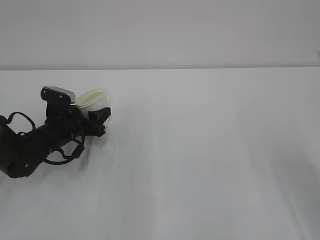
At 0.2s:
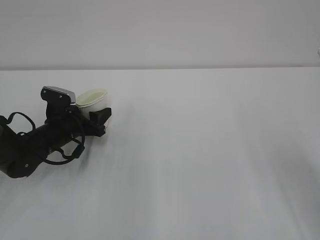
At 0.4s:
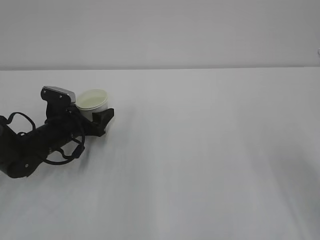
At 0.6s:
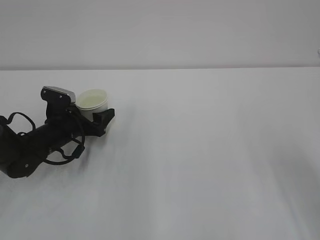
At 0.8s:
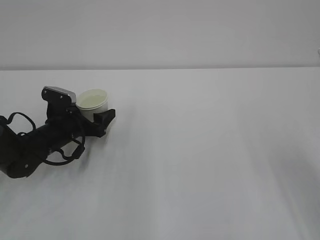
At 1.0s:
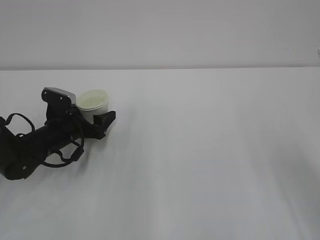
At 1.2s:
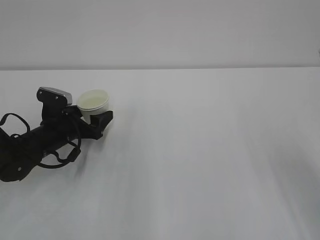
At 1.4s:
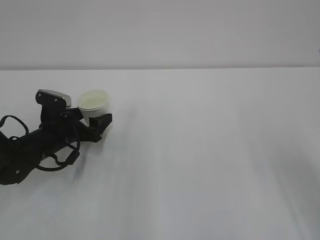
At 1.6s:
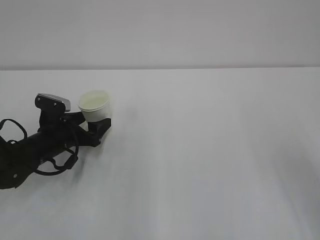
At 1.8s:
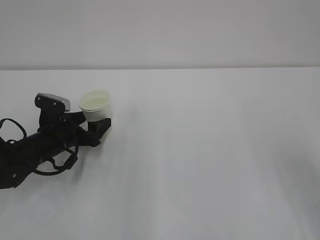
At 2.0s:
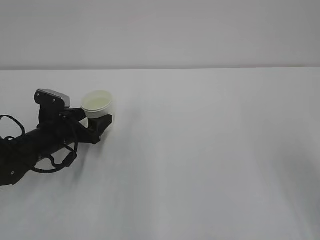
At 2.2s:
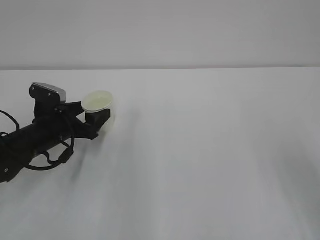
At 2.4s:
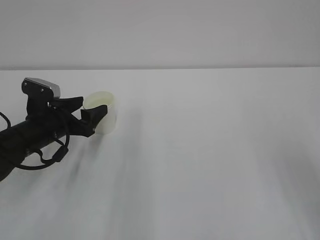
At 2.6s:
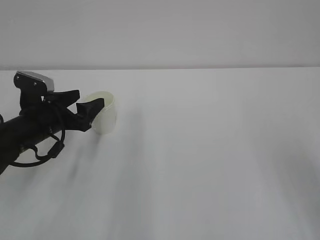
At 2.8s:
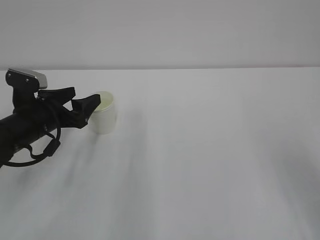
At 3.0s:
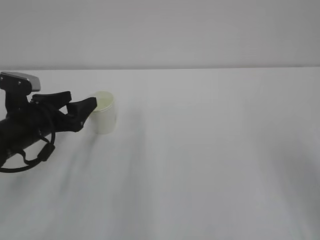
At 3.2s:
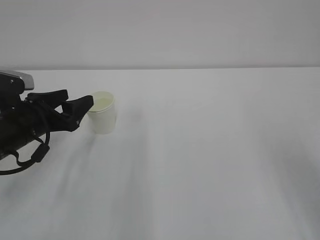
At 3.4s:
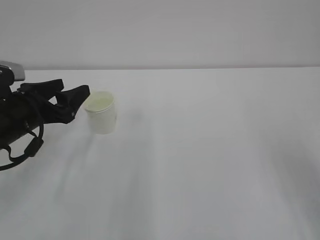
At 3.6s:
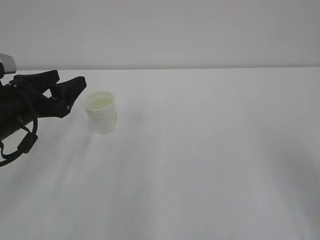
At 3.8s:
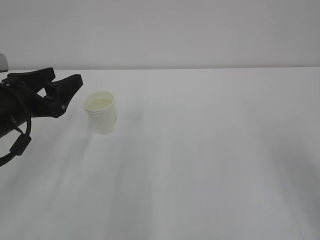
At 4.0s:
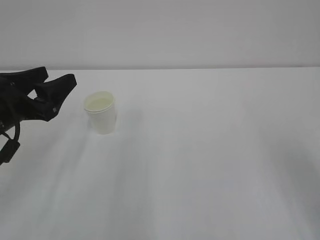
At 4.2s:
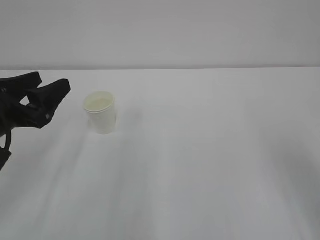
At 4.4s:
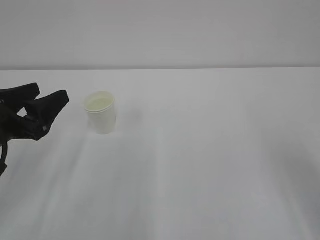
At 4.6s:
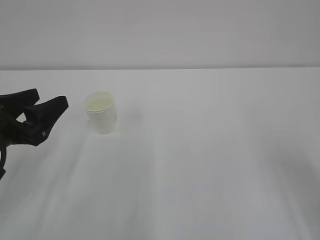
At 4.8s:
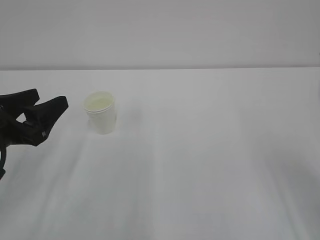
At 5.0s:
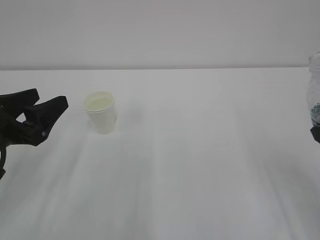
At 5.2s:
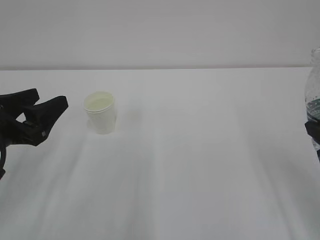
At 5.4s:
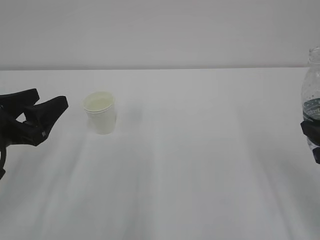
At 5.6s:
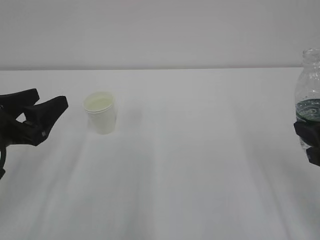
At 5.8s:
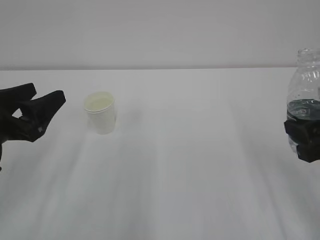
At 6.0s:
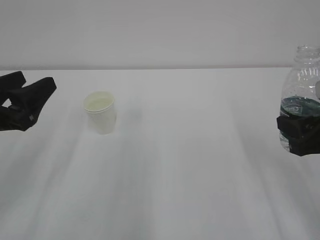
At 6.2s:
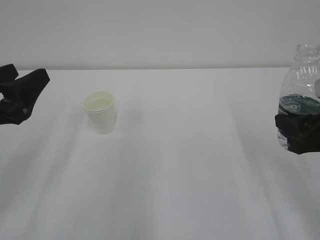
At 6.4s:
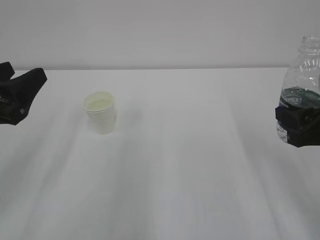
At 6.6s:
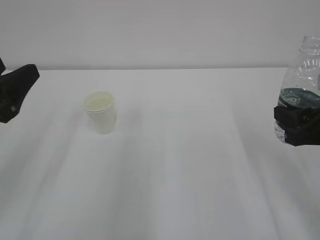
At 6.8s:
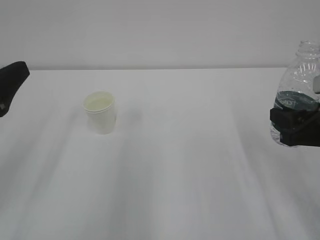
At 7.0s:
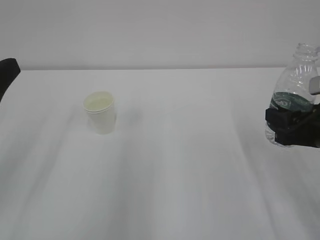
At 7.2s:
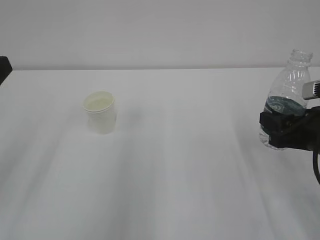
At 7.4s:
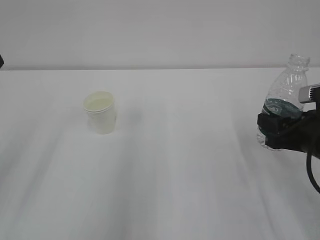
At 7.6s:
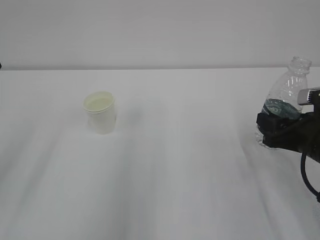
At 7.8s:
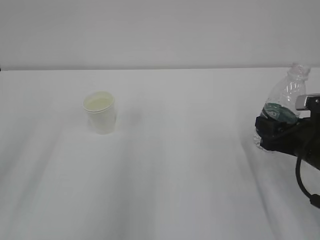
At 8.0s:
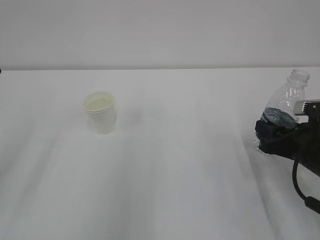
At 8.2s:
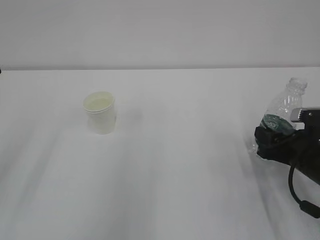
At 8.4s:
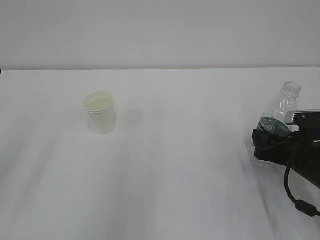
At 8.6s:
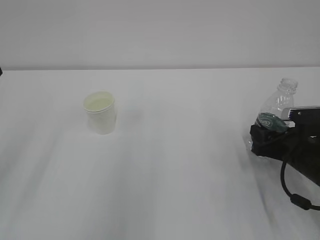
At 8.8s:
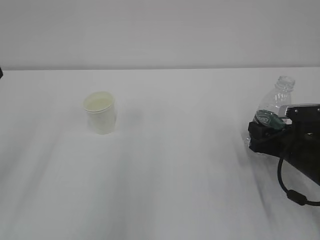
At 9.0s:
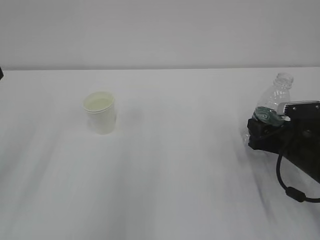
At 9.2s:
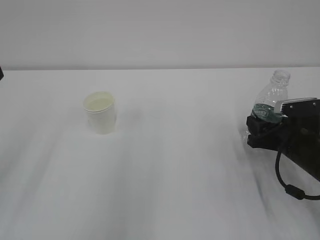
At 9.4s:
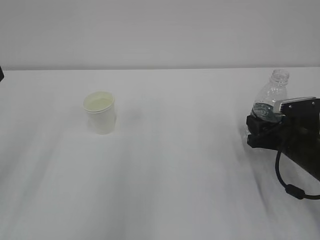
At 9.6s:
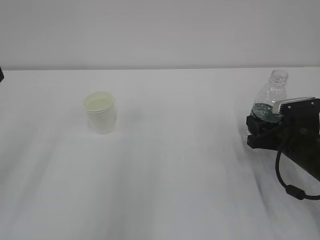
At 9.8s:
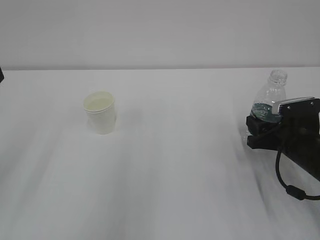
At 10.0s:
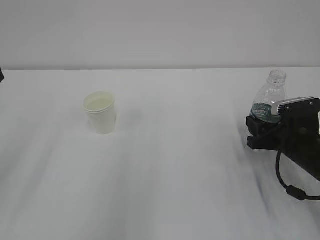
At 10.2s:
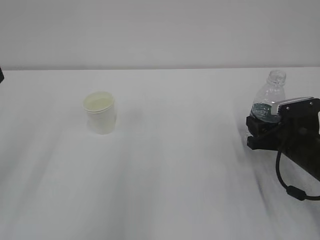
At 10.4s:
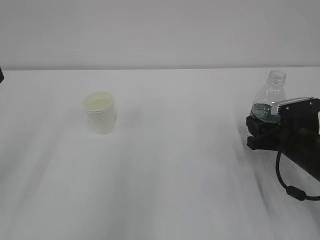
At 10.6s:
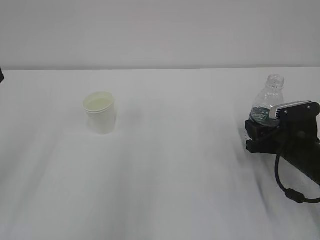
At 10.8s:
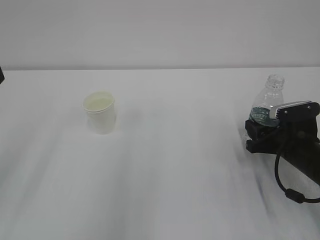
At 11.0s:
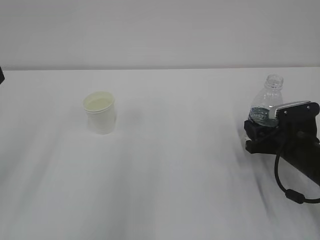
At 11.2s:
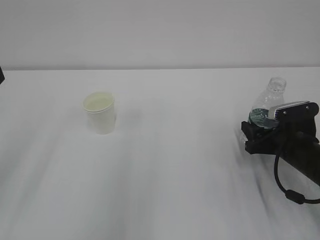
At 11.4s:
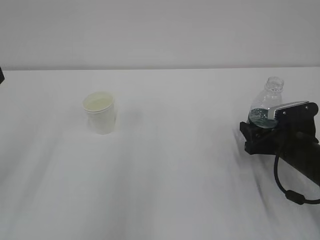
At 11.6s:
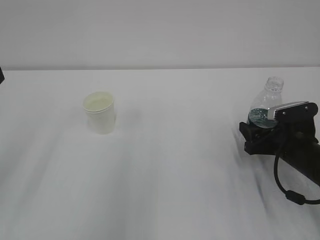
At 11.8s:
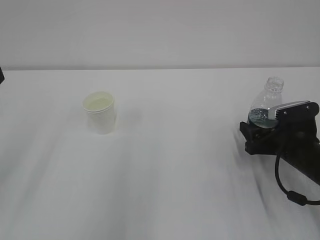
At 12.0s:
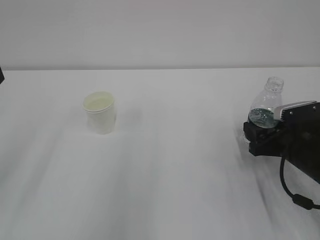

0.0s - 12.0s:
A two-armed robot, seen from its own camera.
0.0s - 1.6s: The left gripper opens its fingers.
1.6s - 3.0s: The left gripper travels upward by some 10 cm.
3.0s - 4.4s: The left gripper heads backward and upward, covering roughly 10 cm.
4.4s - 6.0s: The right gripper moves approximately 5 cm.
6.0s - 7.6s: The left gripper is displaced upward and backward by some 10 cm, while the right gripper goes roughly 5 cm downward.
7.6s - 9.0s: The right gripper travels downward by approximately 5 cm.
9.0s - 10.4s: There are only small adjustments of the grippers.
10.4s - 12.0s: The right gripper opens its fingers.

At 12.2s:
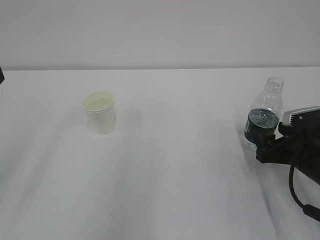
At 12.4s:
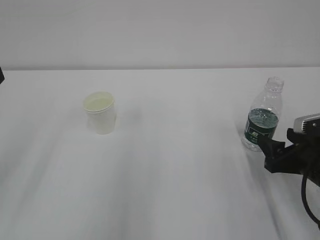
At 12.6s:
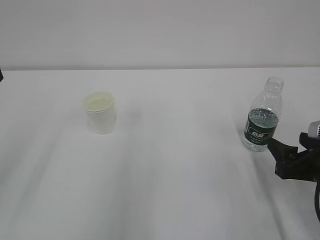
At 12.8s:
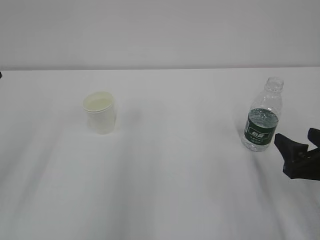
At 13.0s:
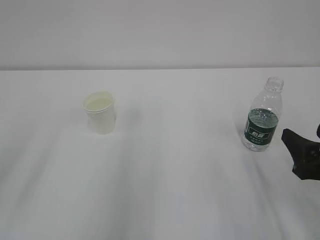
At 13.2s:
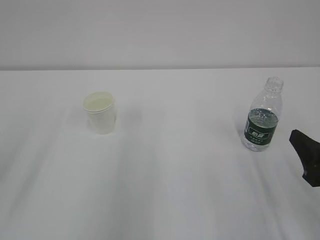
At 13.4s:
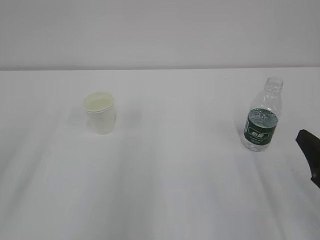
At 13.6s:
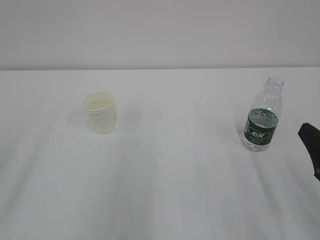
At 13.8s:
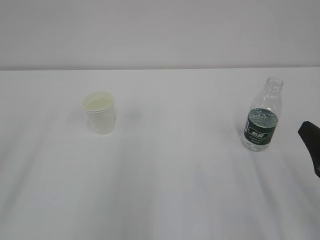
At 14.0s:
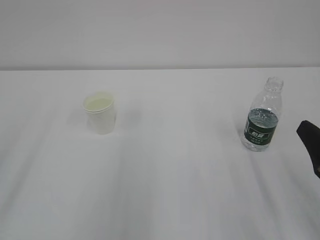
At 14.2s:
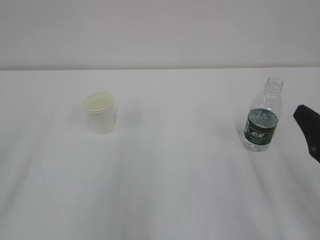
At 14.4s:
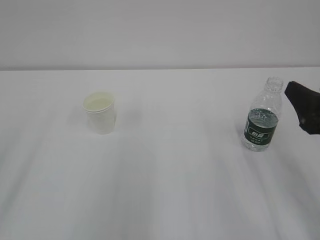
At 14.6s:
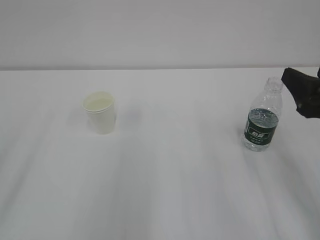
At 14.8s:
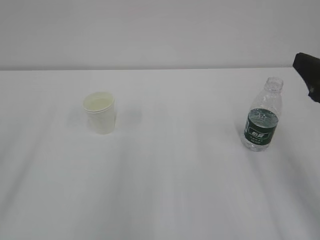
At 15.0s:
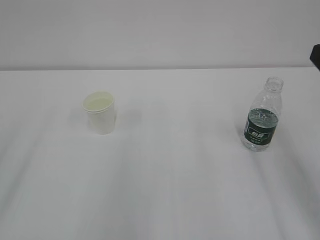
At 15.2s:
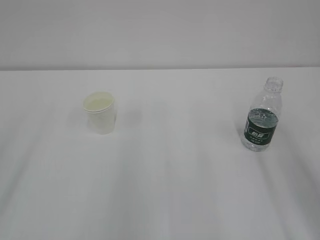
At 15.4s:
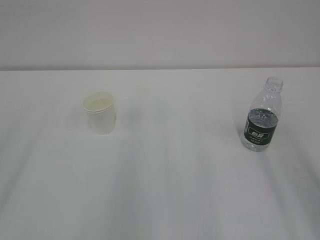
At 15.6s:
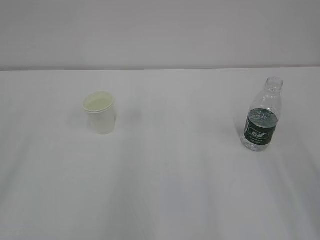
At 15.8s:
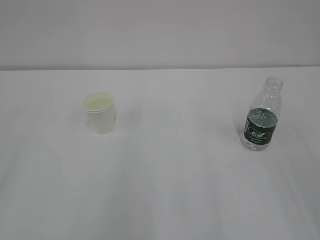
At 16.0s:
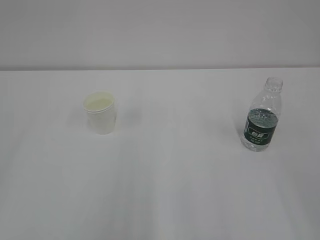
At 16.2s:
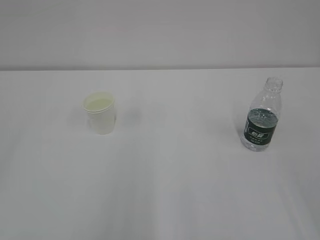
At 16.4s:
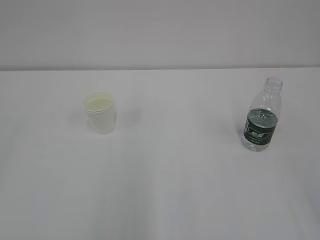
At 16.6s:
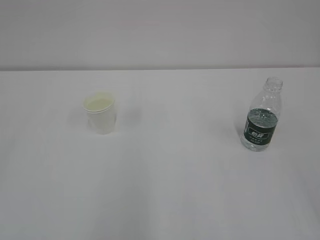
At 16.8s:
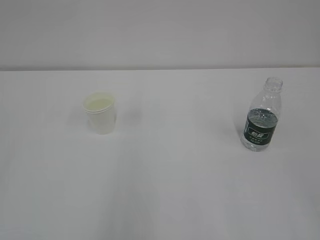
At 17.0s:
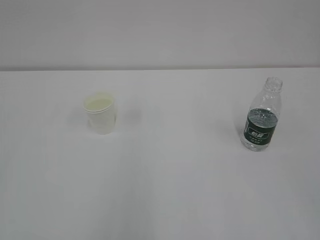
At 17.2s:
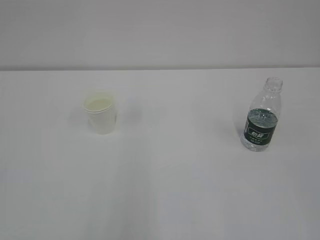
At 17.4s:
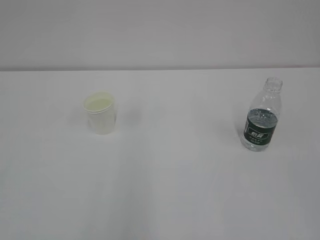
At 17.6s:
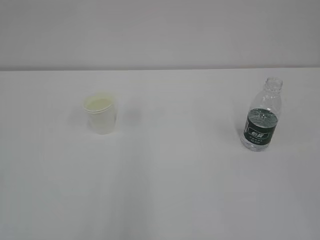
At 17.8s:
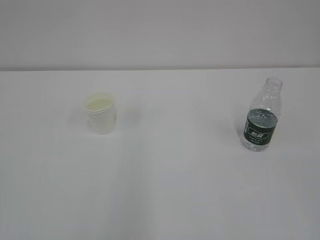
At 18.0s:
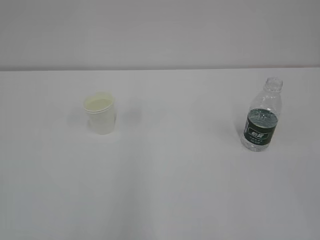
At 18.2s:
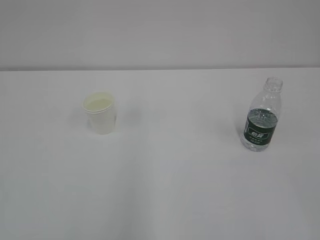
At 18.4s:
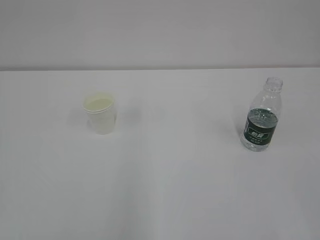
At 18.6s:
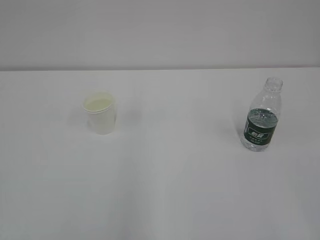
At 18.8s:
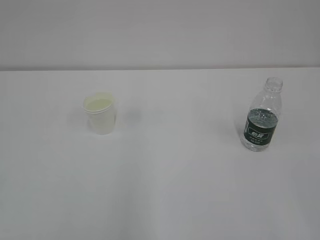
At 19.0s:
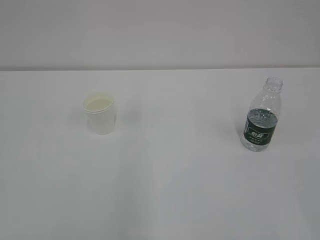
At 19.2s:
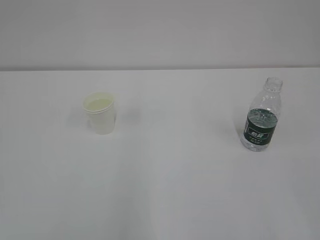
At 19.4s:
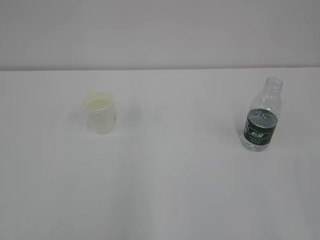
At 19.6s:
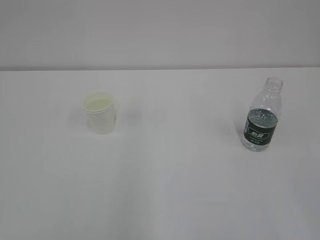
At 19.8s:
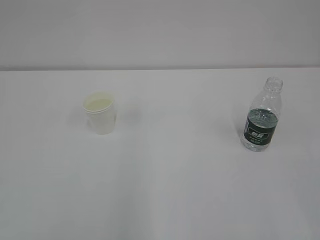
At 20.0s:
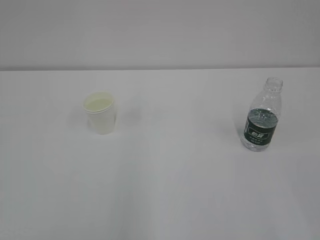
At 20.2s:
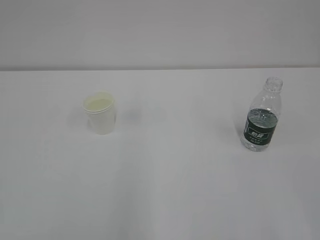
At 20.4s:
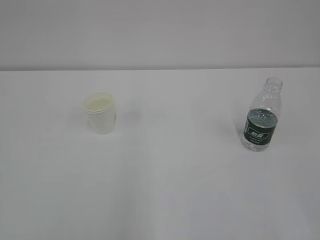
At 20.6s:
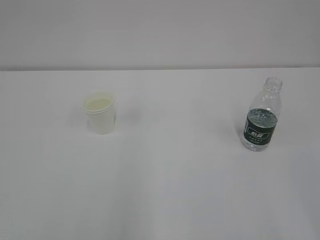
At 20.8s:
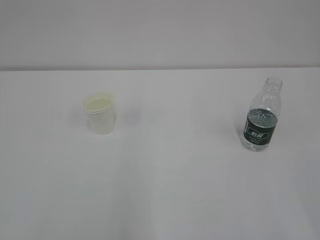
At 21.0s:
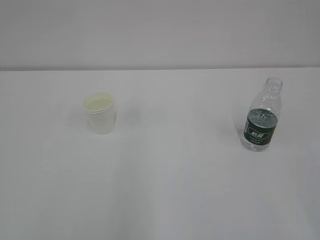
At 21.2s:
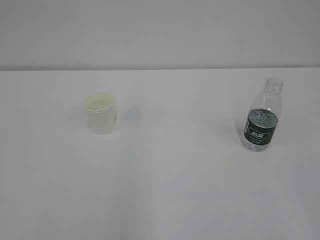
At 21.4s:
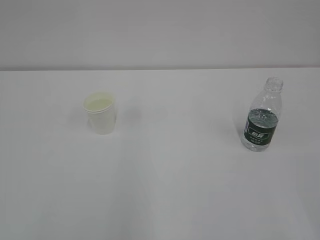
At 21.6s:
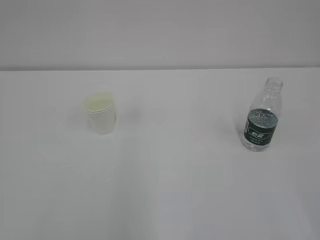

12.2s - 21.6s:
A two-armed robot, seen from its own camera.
12.2s - 13.8s: The right gripper heads backward and upward, covering roughly 15 cm.
13.8s - 15.4s: The right gripper shifts some 15 cm upward.
18.4s - 20.0s: The two grippers keep their place.

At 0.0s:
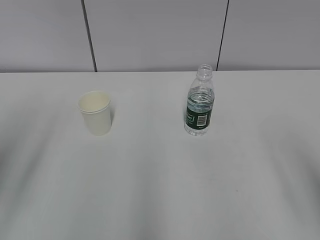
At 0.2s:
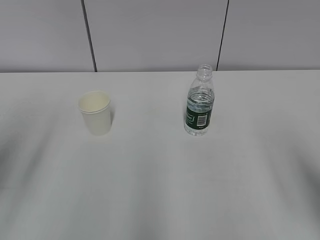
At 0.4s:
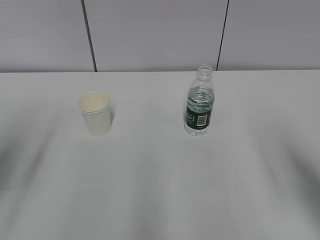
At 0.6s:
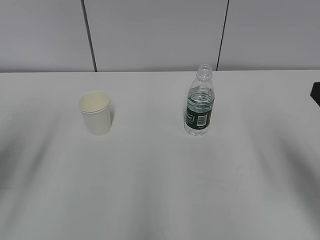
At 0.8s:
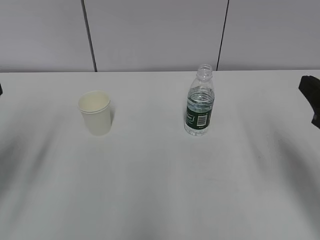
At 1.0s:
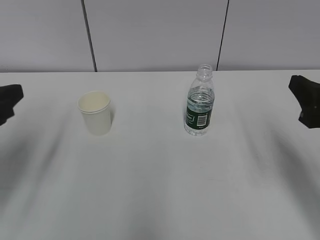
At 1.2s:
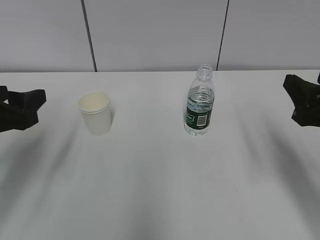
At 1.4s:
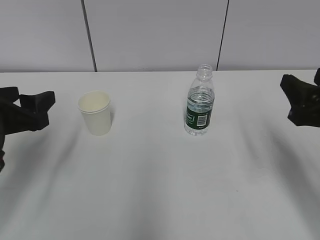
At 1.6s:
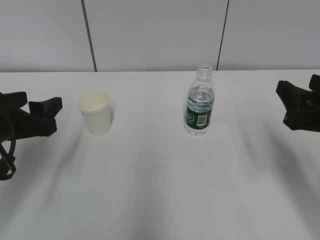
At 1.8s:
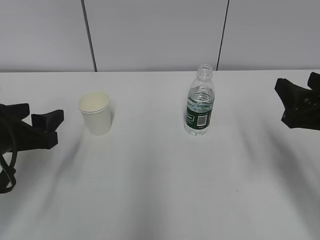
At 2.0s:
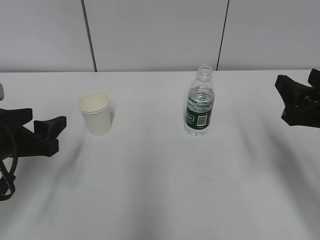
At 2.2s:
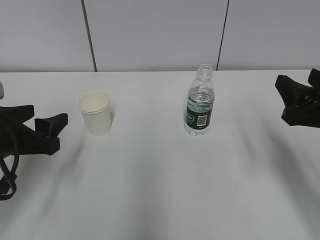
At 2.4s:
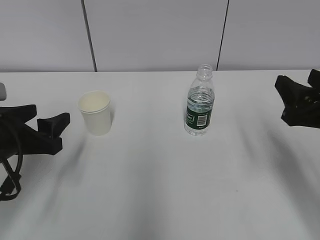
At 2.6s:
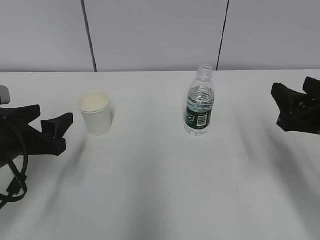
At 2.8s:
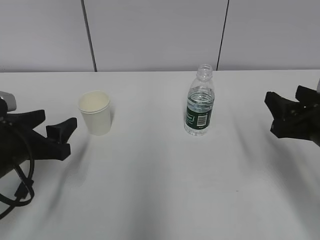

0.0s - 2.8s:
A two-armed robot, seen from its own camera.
0.0s - 1.4s: The left gripper travels downward and forward by about 15 cm. The right gripper is displaced forward and downward by some 15 cm.
1.4s - 2.8s: The left gripper goes about 5 cm downward.
